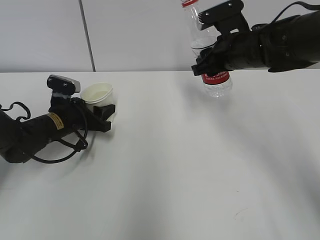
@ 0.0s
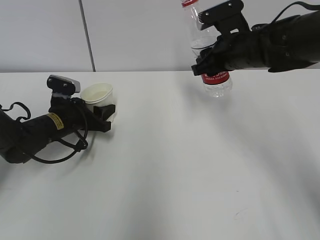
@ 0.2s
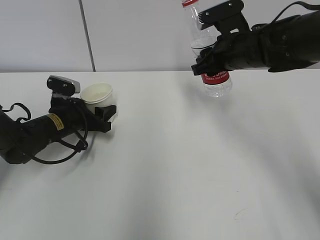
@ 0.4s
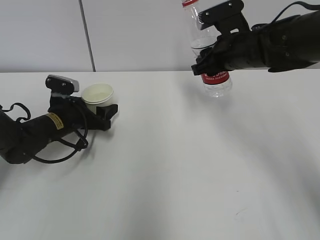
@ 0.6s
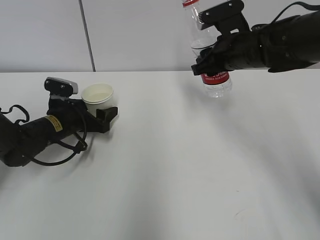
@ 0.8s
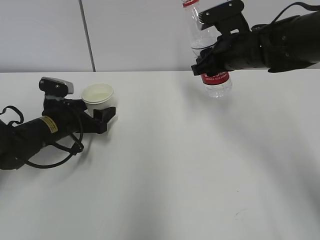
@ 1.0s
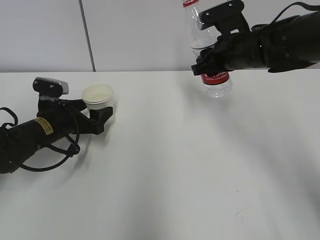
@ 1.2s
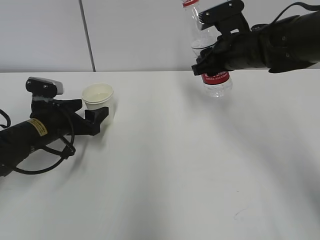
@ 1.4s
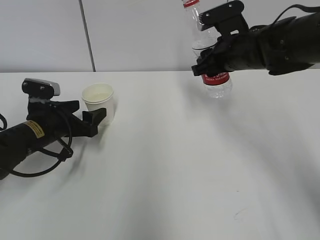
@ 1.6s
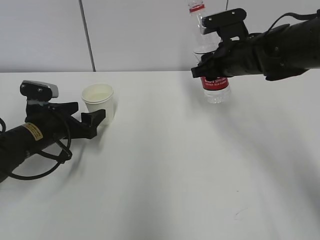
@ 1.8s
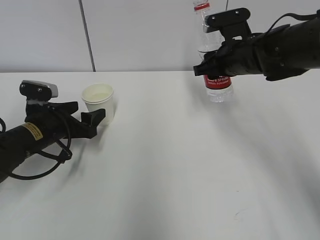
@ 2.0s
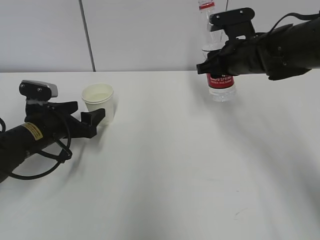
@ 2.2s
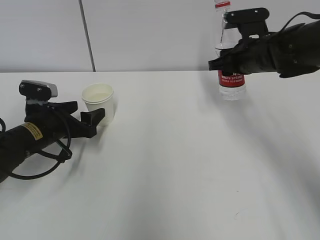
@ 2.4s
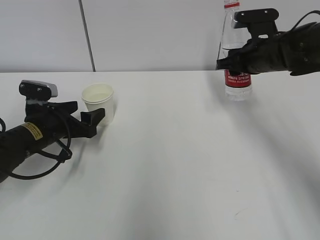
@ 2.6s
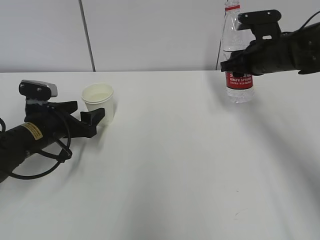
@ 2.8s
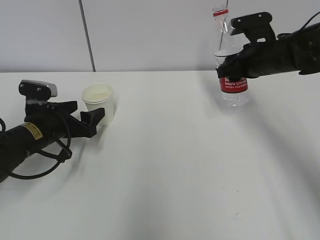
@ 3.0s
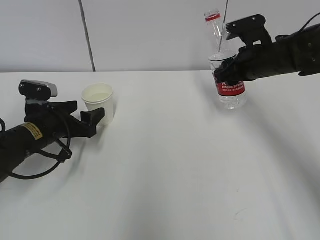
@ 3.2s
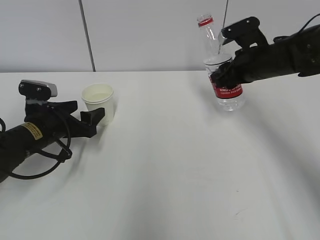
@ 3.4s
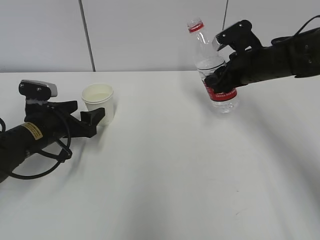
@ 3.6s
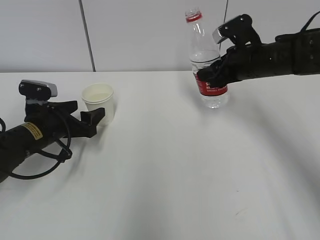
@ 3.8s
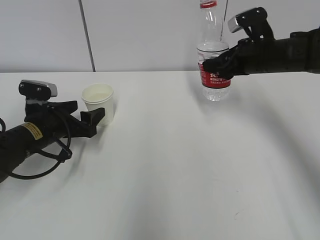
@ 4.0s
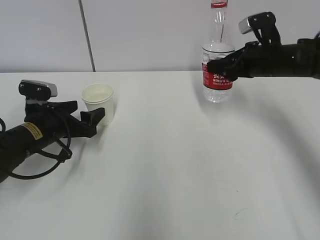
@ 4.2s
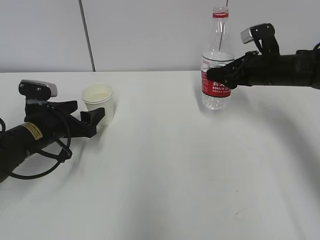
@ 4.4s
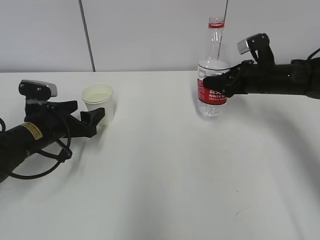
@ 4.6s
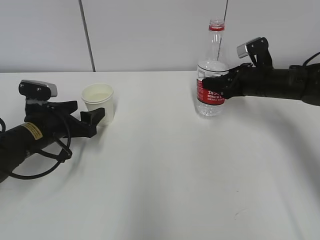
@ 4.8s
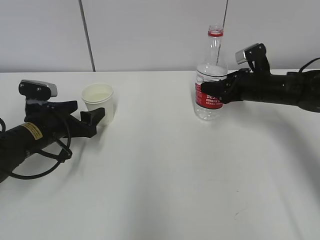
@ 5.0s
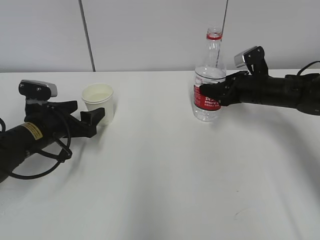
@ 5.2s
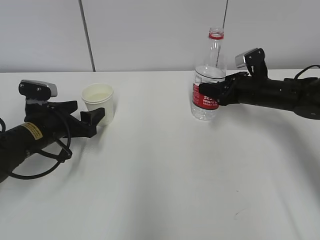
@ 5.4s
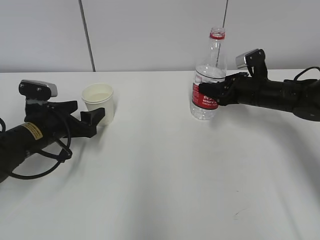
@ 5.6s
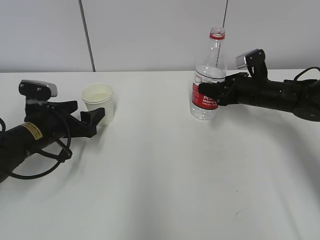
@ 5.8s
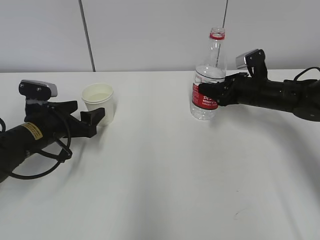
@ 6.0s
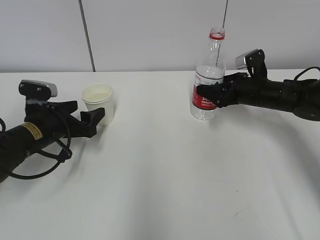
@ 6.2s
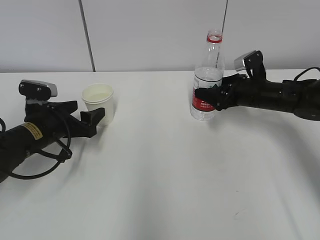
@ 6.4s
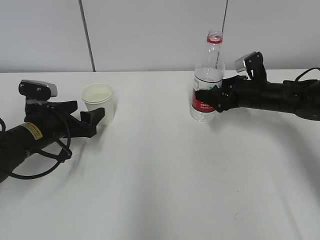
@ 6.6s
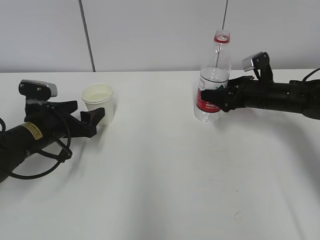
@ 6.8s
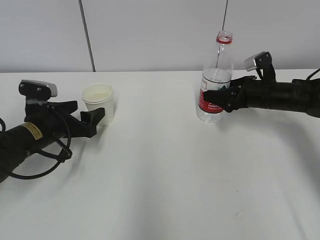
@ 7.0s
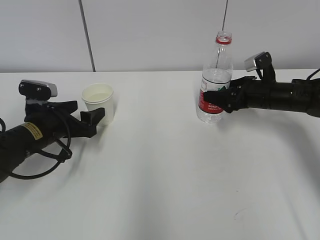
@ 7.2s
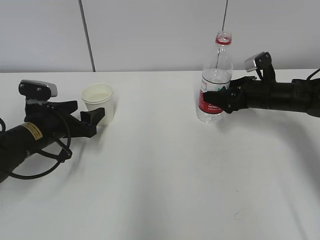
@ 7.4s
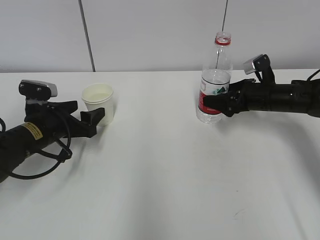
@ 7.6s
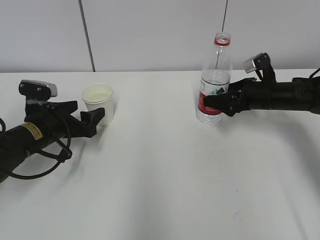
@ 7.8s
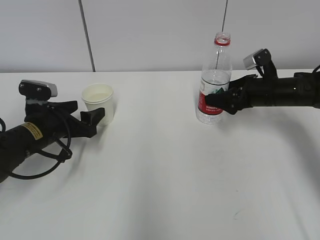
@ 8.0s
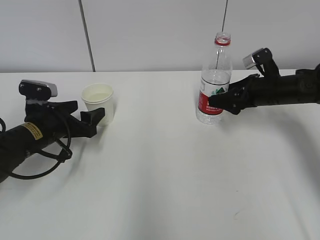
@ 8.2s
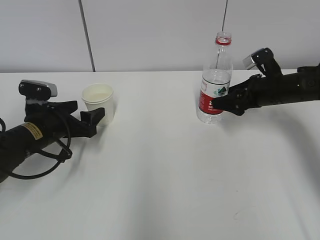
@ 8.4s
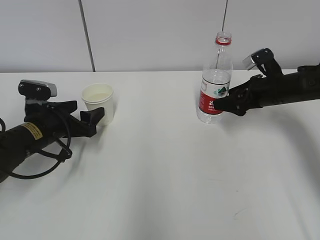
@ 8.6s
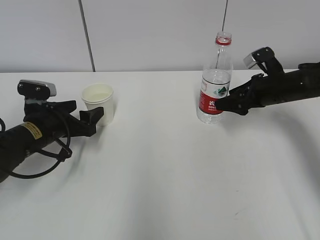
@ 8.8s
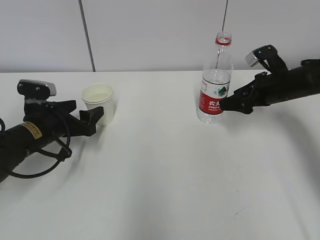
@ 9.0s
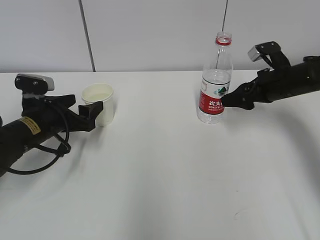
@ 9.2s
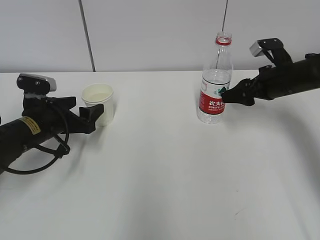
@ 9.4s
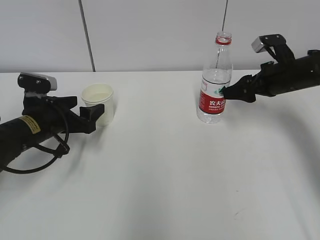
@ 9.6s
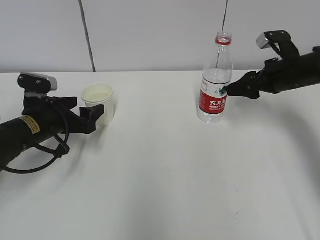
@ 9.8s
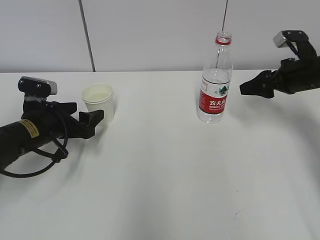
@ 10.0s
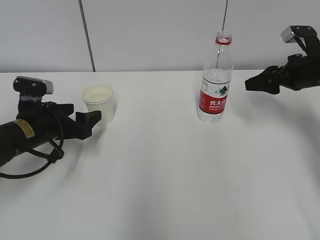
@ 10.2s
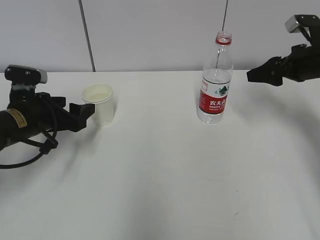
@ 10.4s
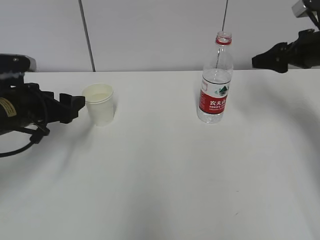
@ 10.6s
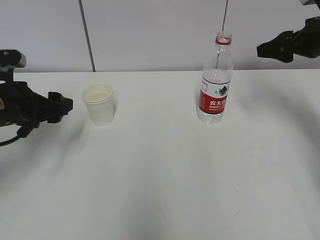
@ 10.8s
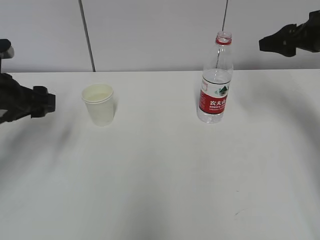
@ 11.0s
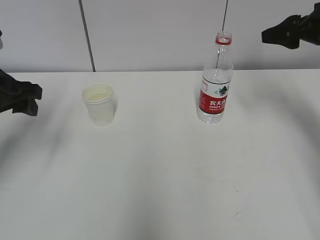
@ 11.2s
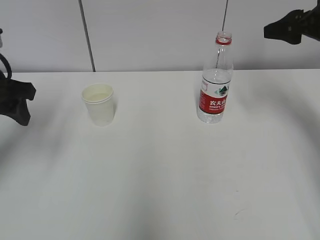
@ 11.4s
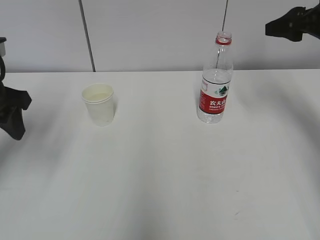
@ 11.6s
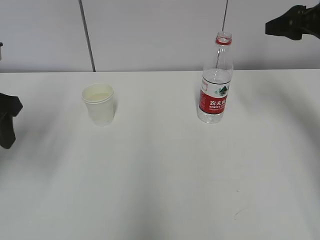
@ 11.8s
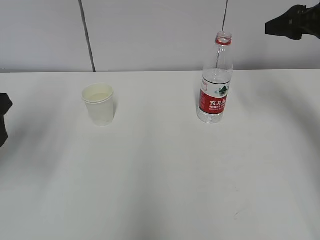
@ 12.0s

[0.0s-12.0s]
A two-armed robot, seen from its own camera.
Step, 0.0s to 2.2s: Place the water bottle with the right hand.
0.0s to 1.6s: The left gripper ends up approximately 5 cm from where it was, and opens its fingers.
1.6s to 3.0s: The right gripper is displaced to the right by roughly 5 cm.
4.4s to 6.0s: The right gripper heads downward, covering roughly 5 cm.
6.0s to 7.6s: The right gripper opens its fingers.
7.6s to 9.0s: The grippers move only a little.
9.0s to 10.4s: The right gripper moves upward, about 5 cm.
10.4s to 12.0s: The right gripper goes roughly 10 cm upward. The left gripper heads upward and backward, covering roughly 15 cm.

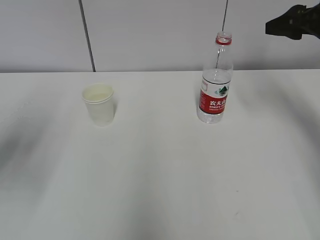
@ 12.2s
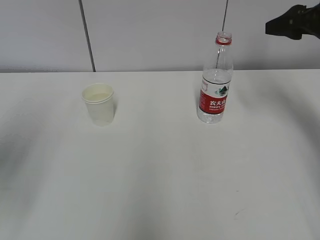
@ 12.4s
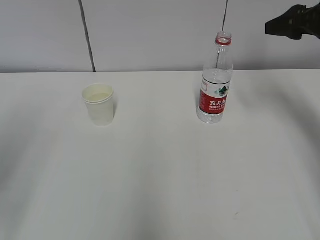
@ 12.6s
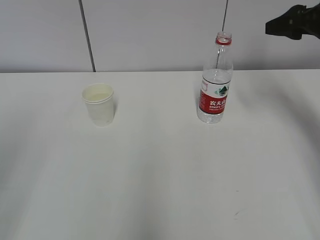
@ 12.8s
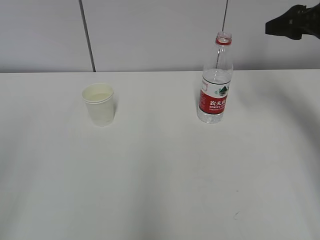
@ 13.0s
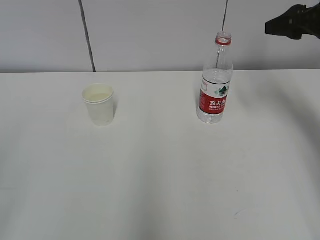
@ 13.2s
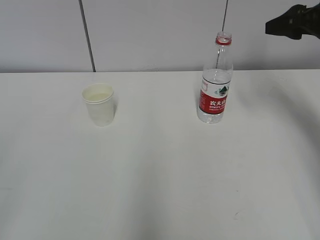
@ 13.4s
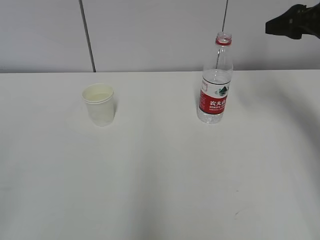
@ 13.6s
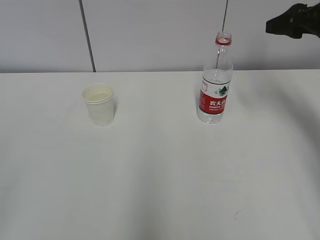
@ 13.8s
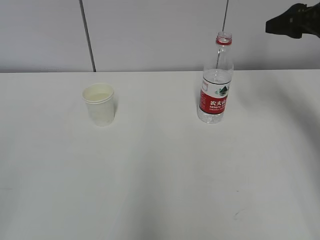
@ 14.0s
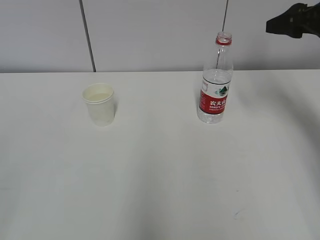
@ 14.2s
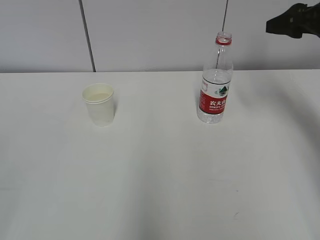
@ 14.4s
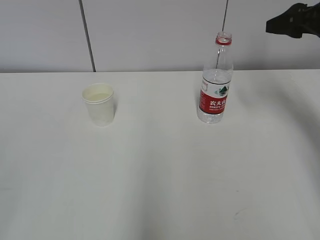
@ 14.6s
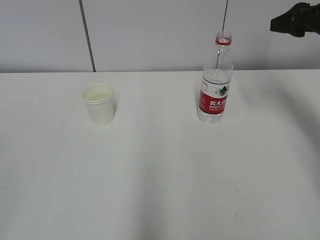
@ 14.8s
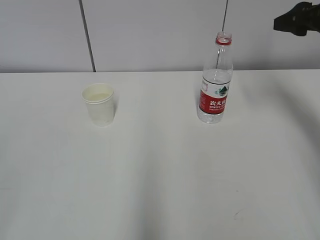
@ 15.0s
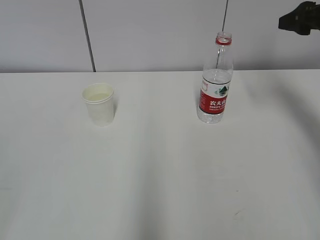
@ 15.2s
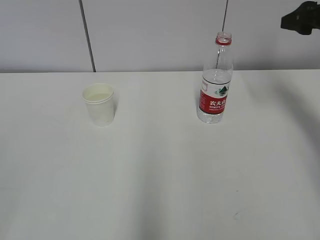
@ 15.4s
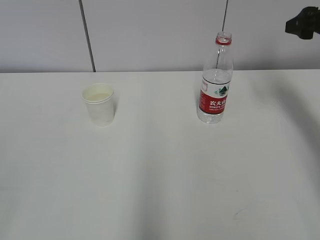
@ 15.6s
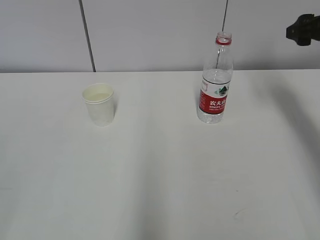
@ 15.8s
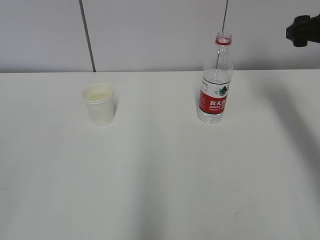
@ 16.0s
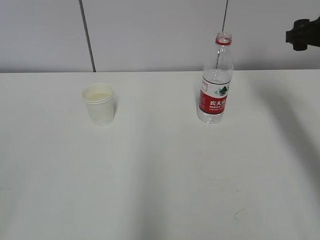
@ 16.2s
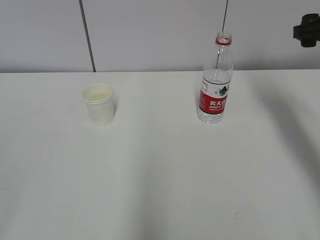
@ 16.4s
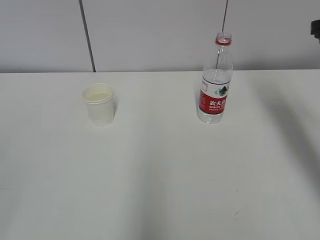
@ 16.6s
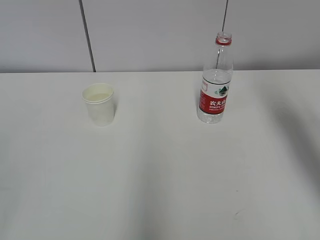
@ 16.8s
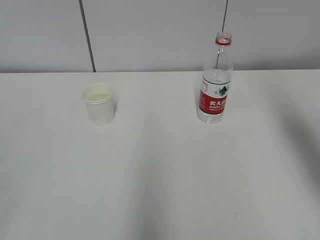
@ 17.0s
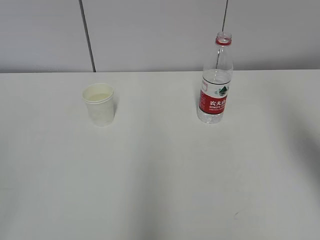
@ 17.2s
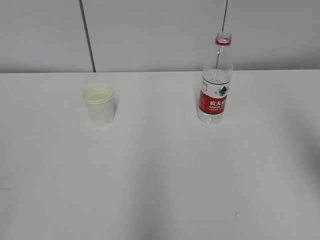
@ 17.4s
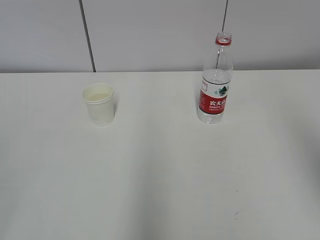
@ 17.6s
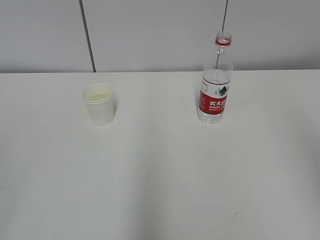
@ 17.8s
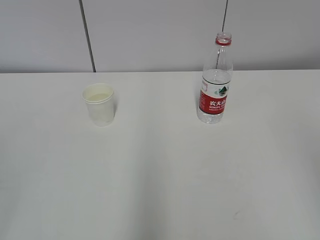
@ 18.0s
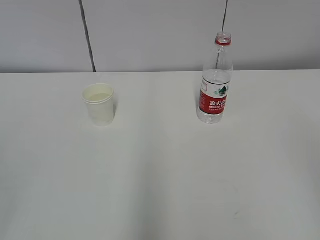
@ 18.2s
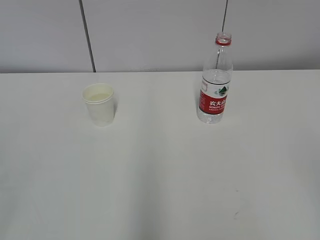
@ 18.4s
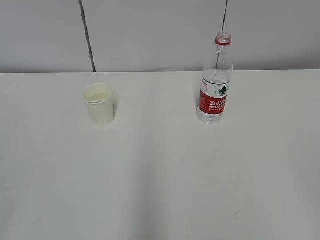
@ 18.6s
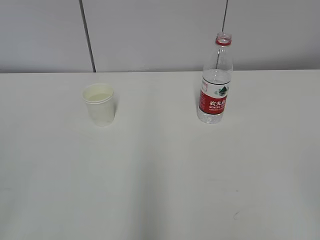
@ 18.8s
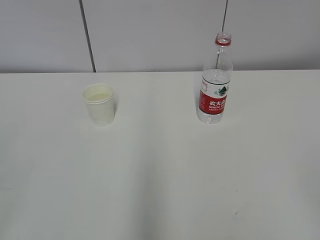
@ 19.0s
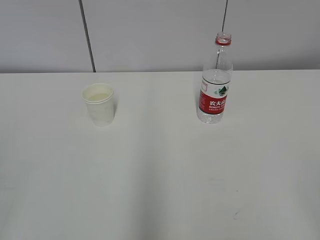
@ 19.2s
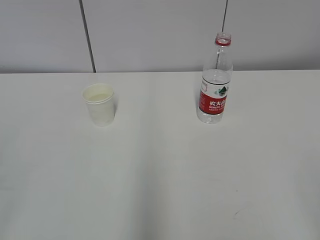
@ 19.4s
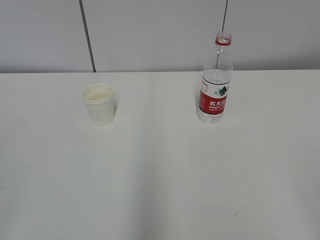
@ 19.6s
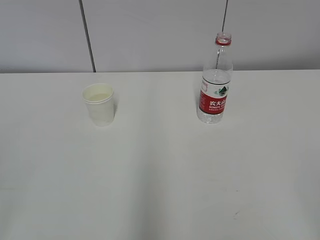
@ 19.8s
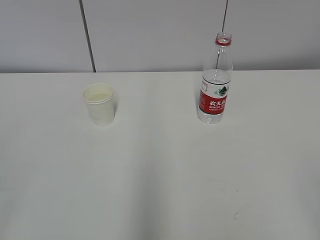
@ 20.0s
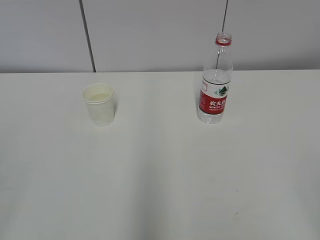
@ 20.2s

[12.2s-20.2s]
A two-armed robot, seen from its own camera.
12.2s to 13.8s: The left gripper goes some 25 cm backward.
15.4s to 17.0s: The right gripper moves backward and upward, roughly 15 cm.
17.0s to 18.6s: The right gripper heads backward, covering some 25 cm.

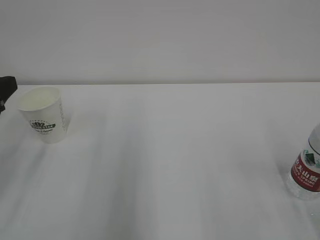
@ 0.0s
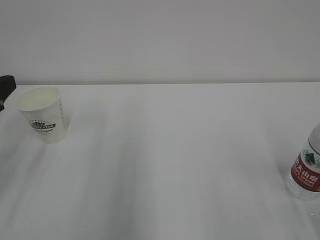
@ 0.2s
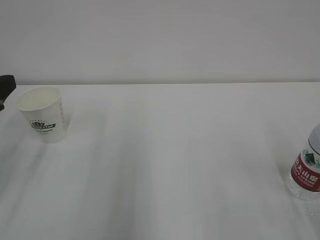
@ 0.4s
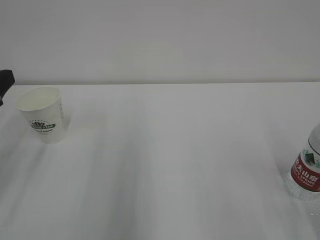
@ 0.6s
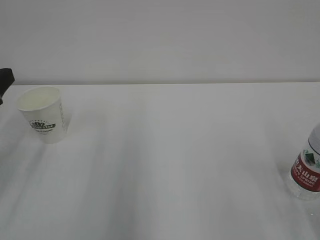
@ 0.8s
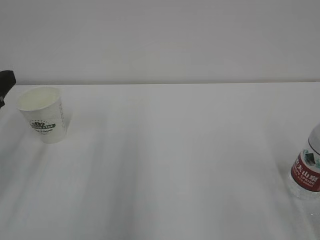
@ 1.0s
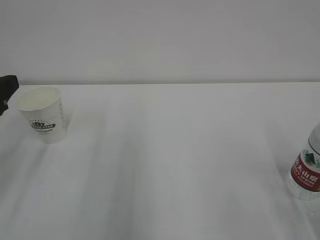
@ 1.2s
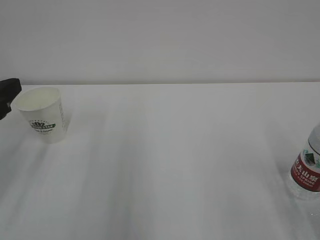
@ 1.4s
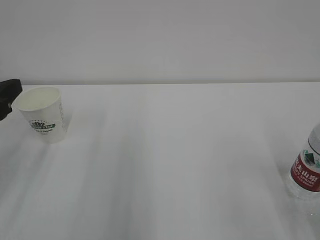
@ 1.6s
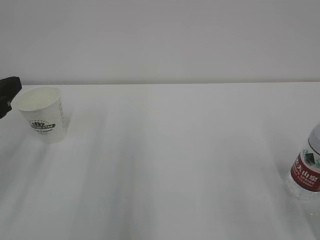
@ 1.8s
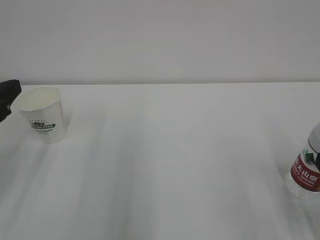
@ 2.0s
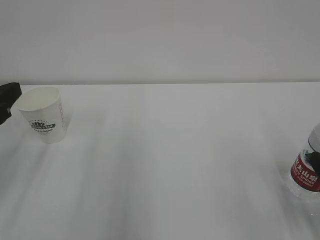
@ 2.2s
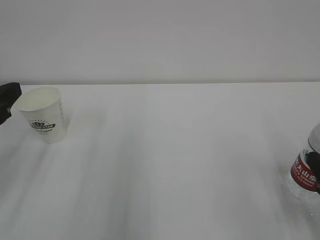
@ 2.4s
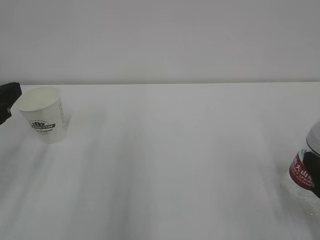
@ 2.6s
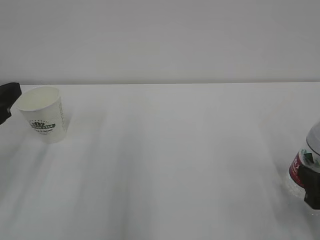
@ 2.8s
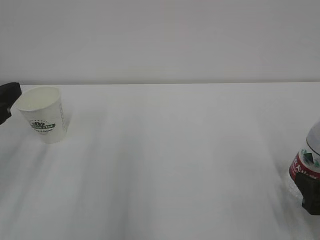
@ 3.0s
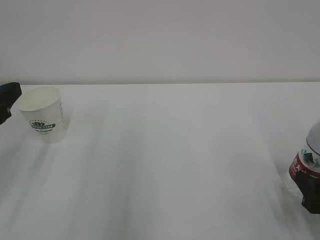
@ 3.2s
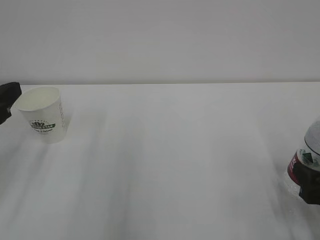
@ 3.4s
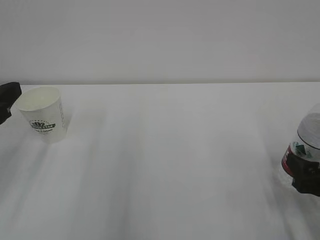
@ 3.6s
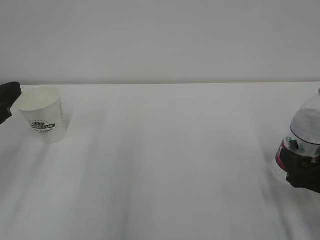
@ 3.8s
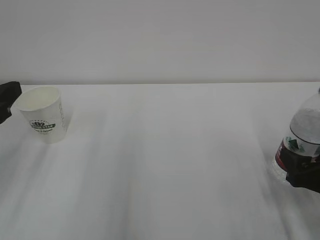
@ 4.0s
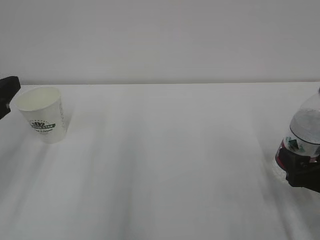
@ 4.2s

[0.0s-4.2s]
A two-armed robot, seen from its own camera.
1.4s to 2.8s: The right gripper heads downward, covering about 5 cm.
2.8s to 4.2s: The grippers move only a little.
